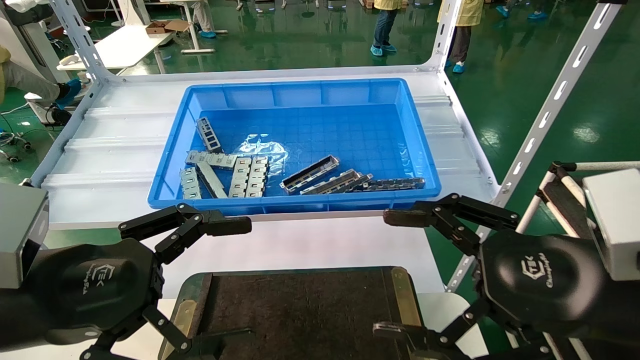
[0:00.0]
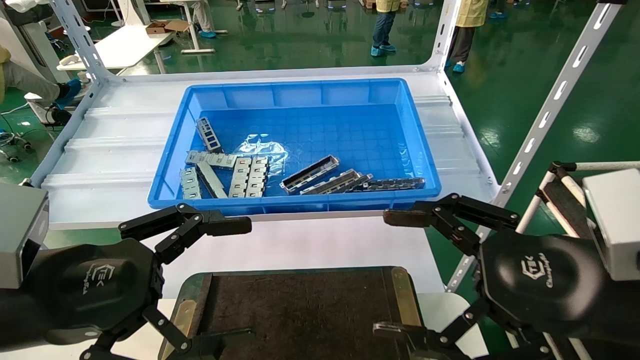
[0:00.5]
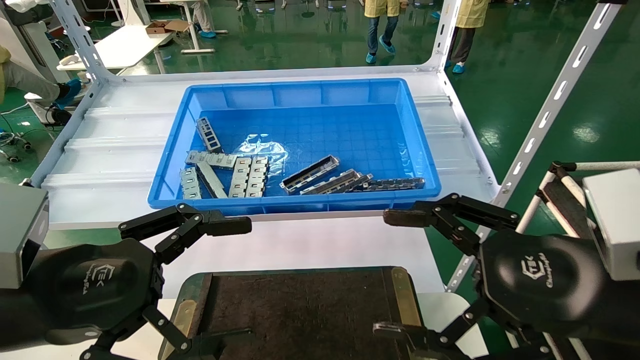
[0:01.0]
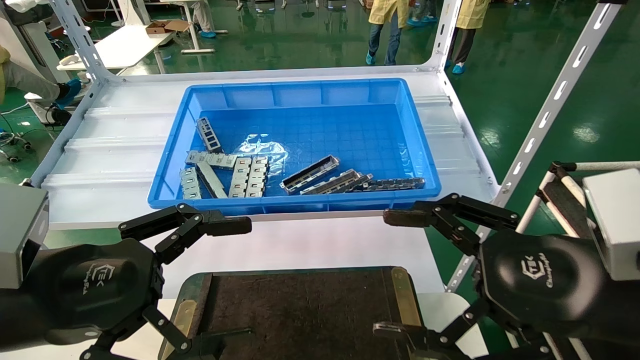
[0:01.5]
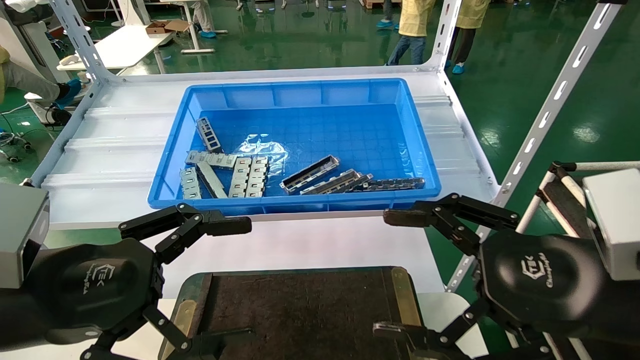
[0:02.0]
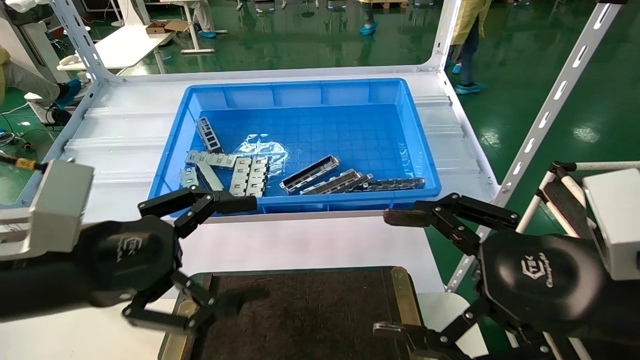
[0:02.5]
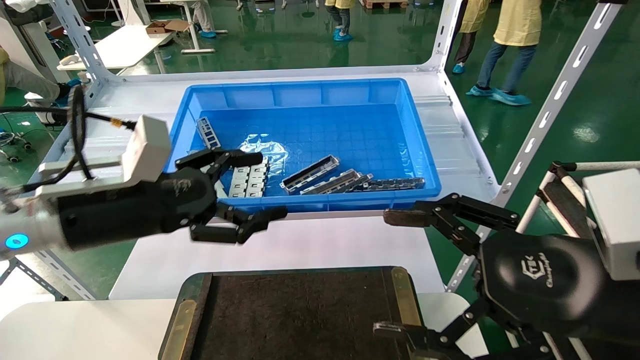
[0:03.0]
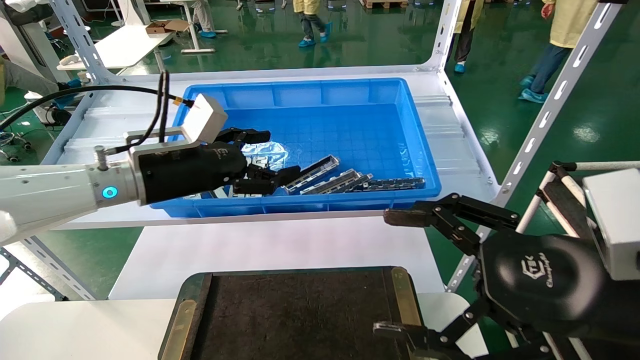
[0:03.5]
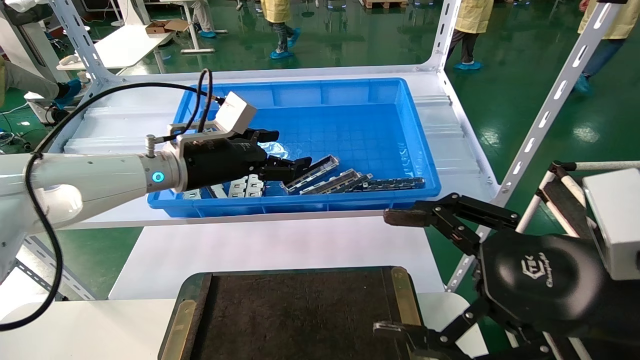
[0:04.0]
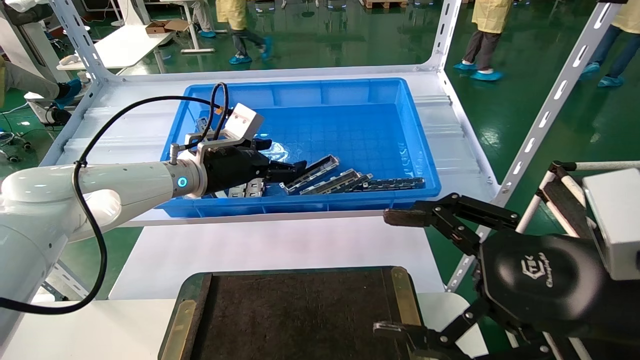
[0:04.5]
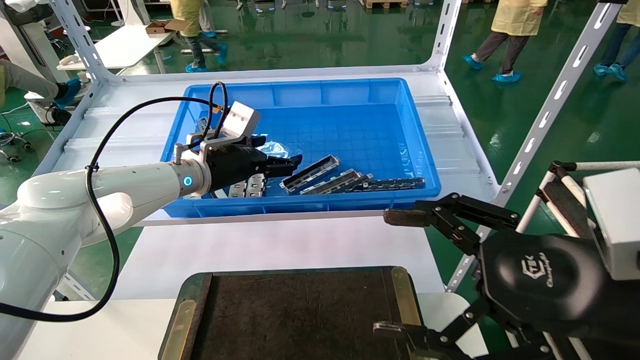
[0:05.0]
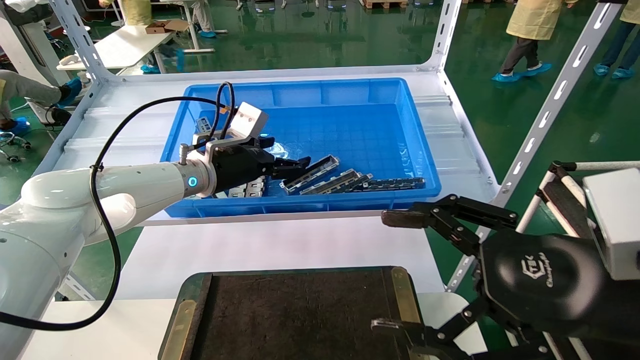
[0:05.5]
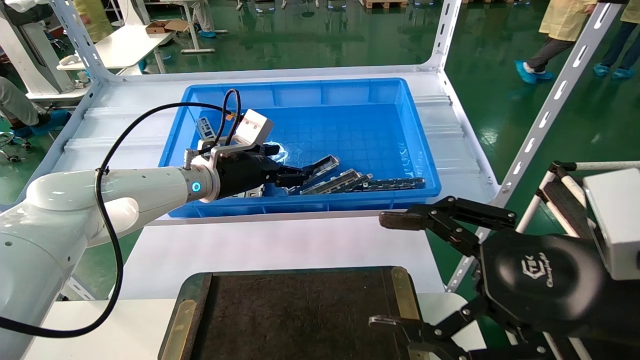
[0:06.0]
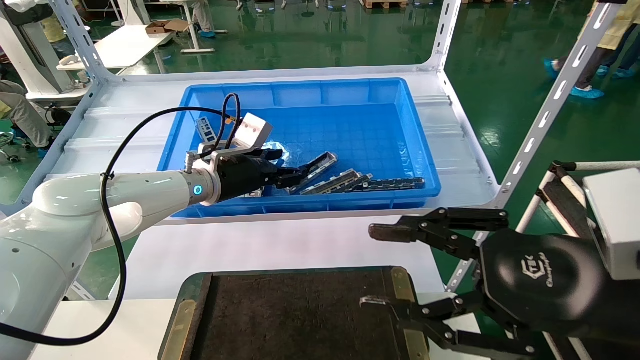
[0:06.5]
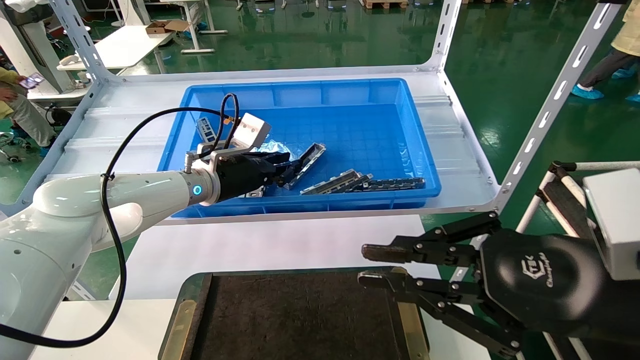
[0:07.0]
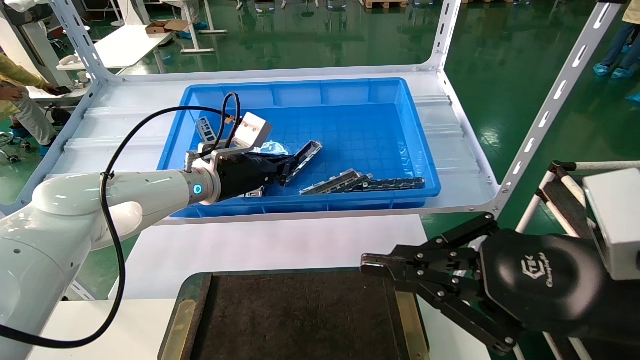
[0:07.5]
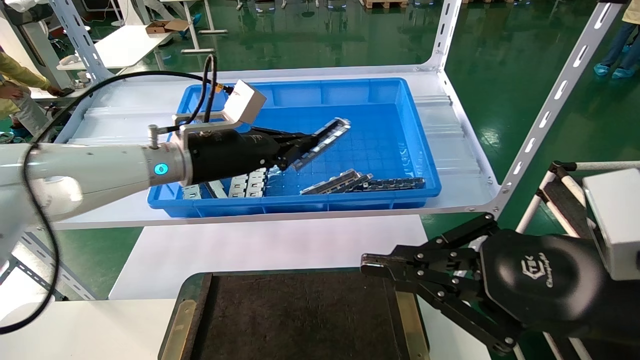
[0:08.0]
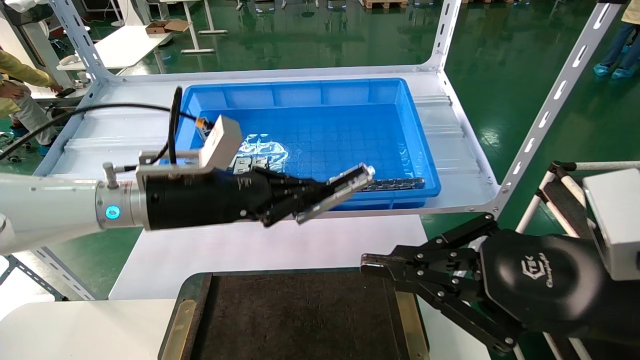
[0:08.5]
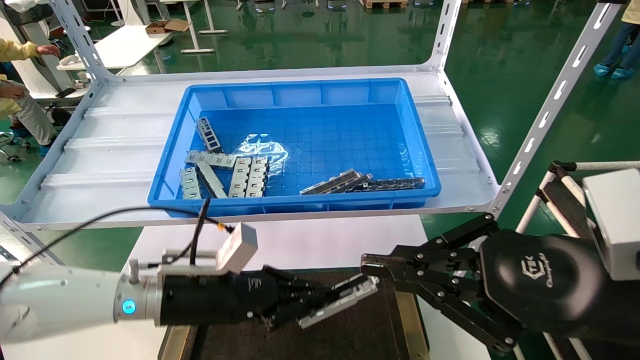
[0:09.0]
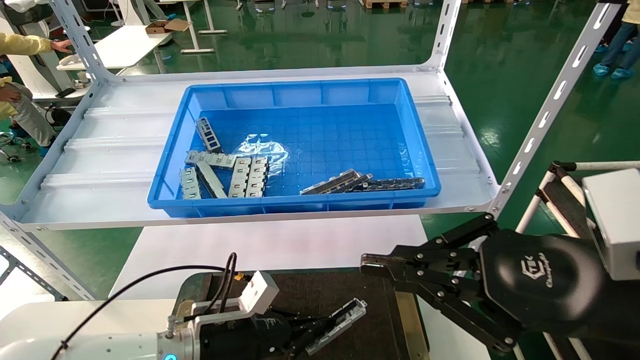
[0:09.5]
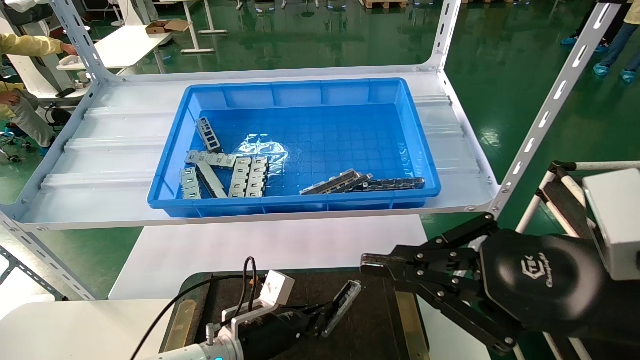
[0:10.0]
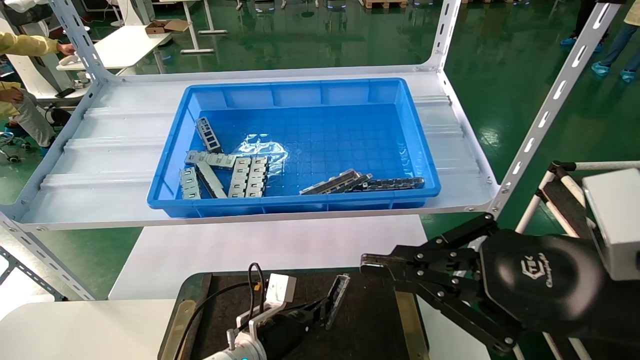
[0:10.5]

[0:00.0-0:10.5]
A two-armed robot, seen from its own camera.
Task of the whole recording: Grasp the part with one hand and place it on the black container.
Step, 0:02.5 to 0:08.0: Pick up the front USB bracket from the feeding area.
0:00.0 to 0:02.0: Neither gripper changes place.
0:02.0 to 0:04.0: The left gripper travels forward by about 25 cm.
0:04.0 to 0:06.5: The right gripper closes, while the left gripper moves approximately 5 cm.
0:06.5 to 0:08.5: The left gripper goes about 10 cm backward, and closes up; the right gripper closes its fingers.
0:08.5 to 0:10.5: The left gripper travels downward by about 30 cm.

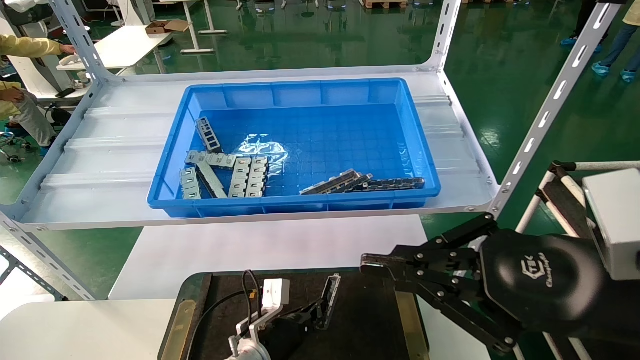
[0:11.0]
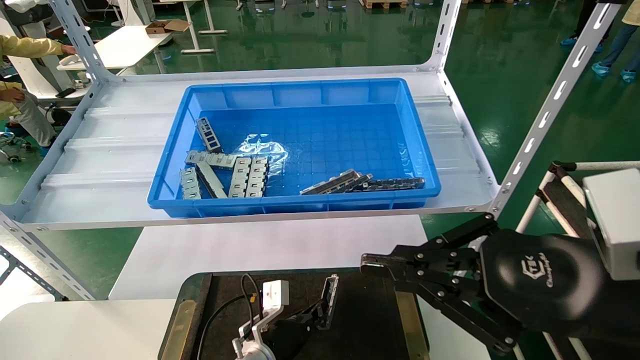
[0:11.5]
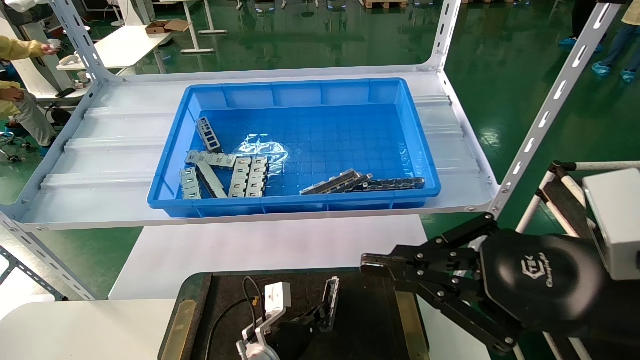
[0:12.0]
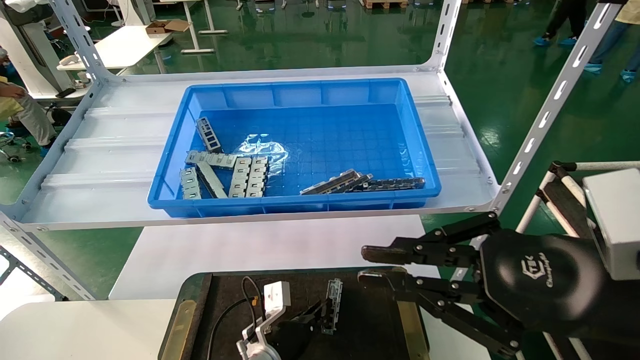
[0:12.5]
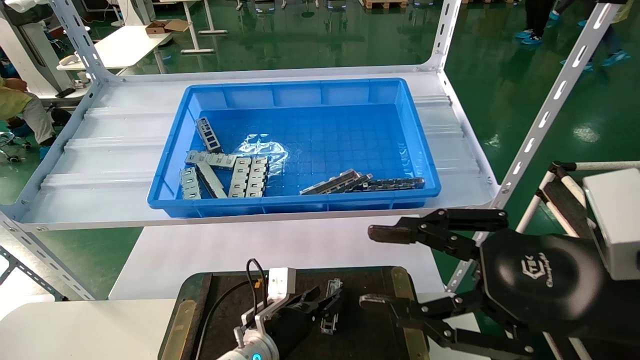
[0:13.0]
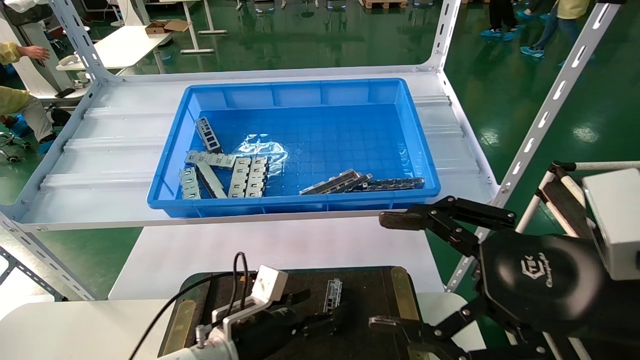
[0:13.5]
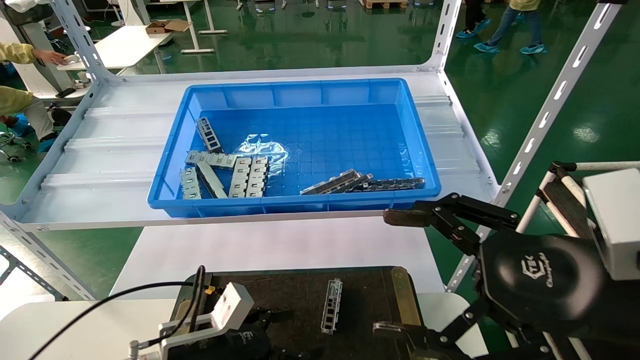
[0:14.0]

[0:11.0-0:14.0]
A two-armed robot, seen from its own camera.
Task of the whole recording: Grasp the part with one hand and place it on the black container.
0:11.0 to 0:12.5: The grippers make only small movements.
0:12.5 to 0:14.0: The left gripper goes approximately 15 cm to the left, upward and backward, and opens its fingers; the right gripper opens.
